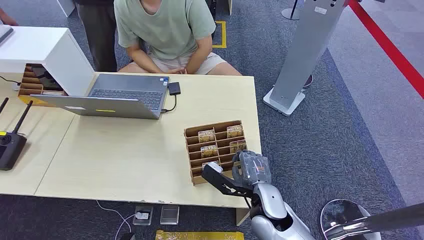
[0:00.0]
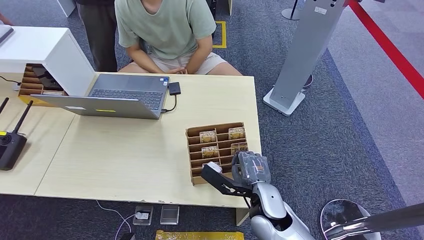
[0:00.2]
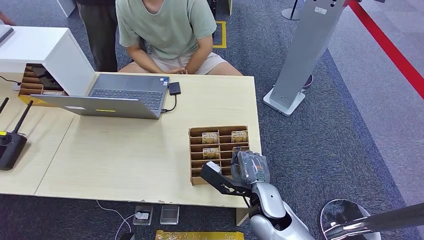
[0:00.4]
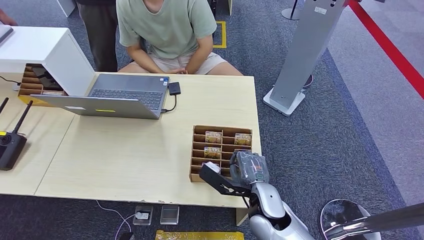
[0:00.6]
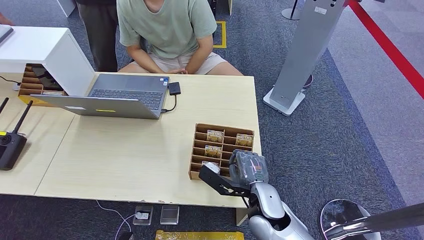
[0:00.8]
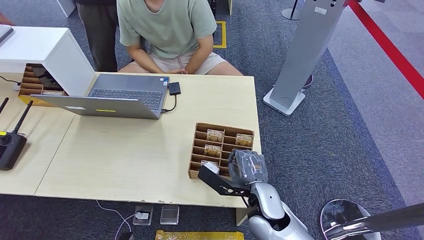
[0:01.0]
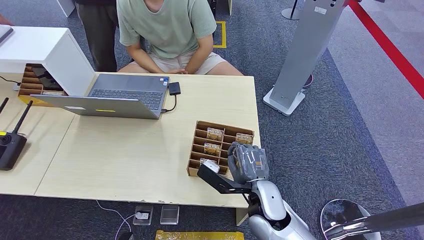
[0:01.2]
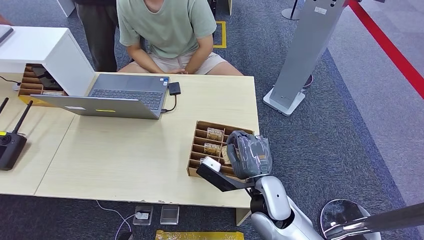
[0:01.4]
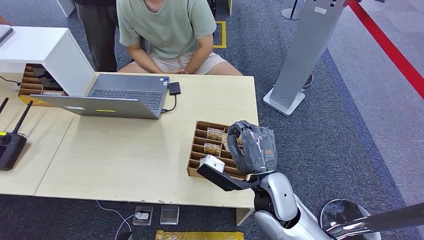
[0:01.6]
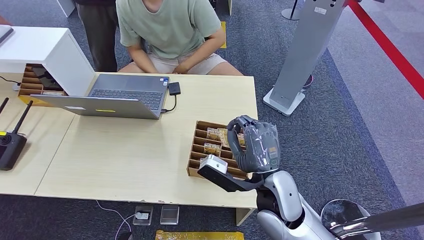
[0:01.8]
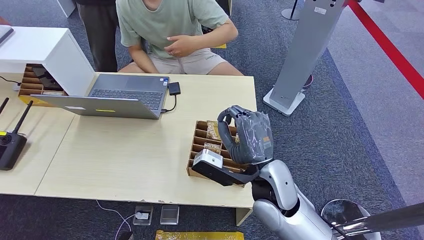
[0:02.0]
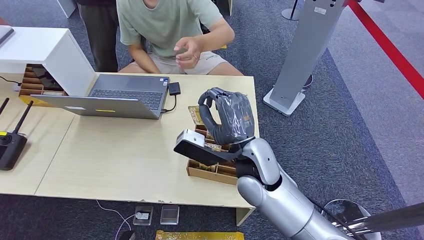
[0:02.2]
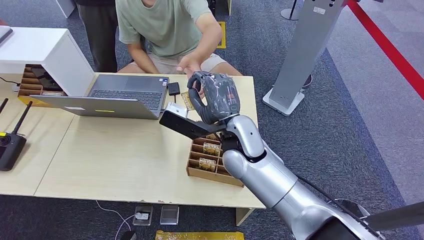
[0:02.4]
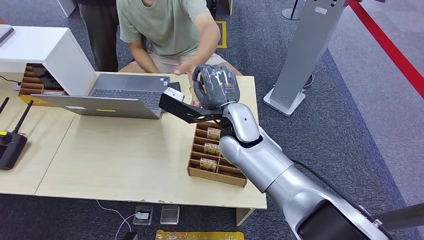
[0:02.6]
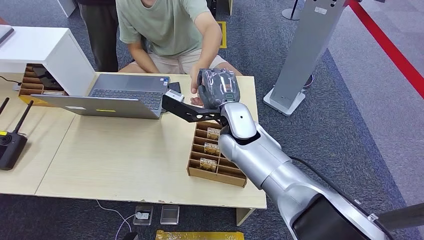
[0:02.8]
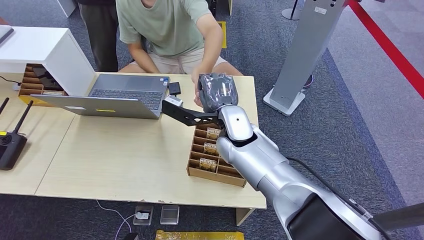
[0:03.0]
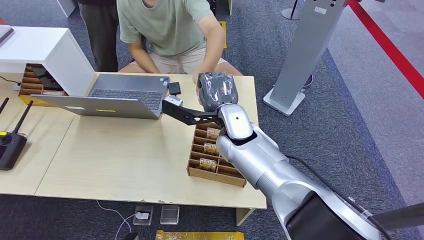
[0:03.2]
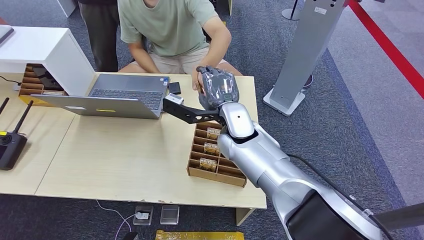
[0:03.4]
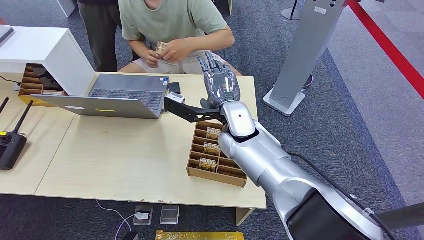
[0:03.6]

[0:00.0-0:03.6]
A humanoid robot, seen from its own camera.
Step, 0:00.0 to 0:01.6: Pick up the room card from the card holder.
Step, 0:02.6 to 0:03.6: Hand the room card to the target.
0:01.8 to 0:03.6: The right hand goes about 15 cm forward and upward.
